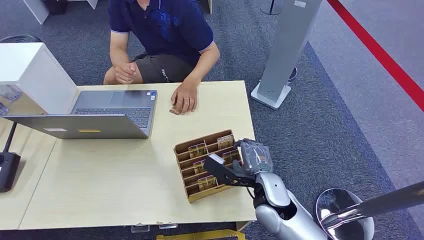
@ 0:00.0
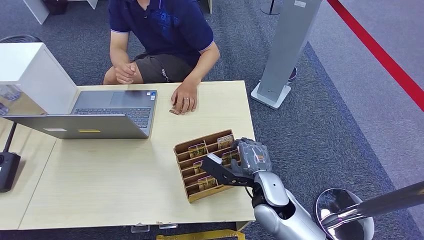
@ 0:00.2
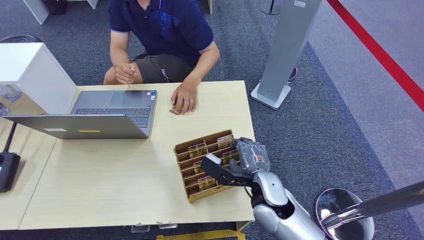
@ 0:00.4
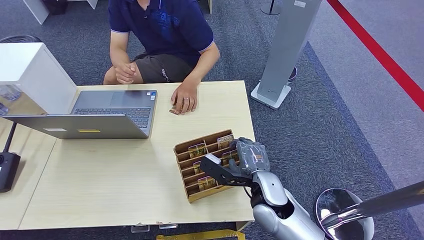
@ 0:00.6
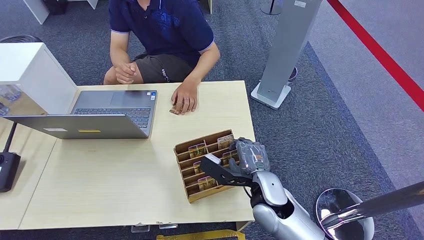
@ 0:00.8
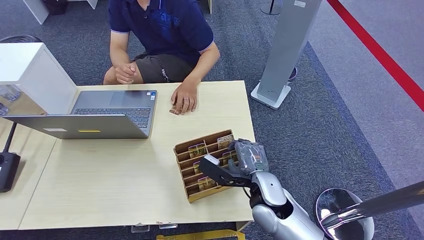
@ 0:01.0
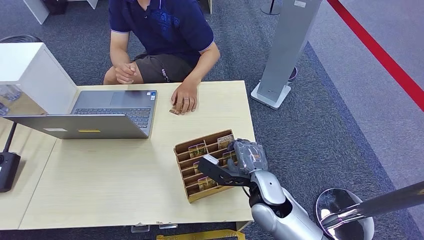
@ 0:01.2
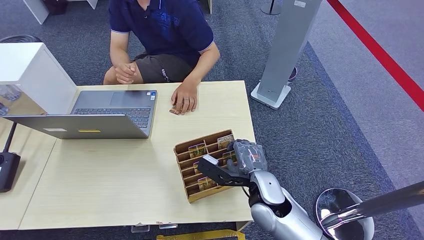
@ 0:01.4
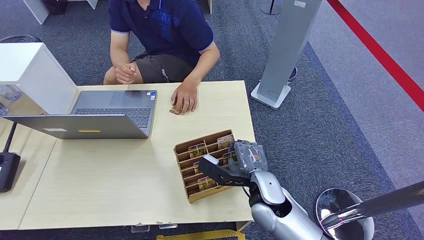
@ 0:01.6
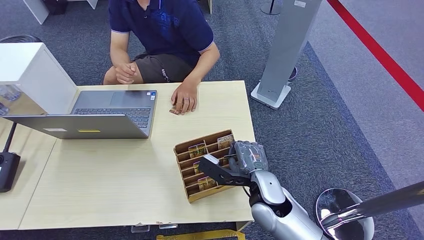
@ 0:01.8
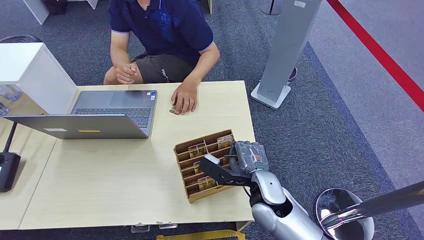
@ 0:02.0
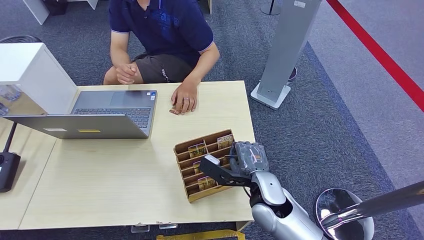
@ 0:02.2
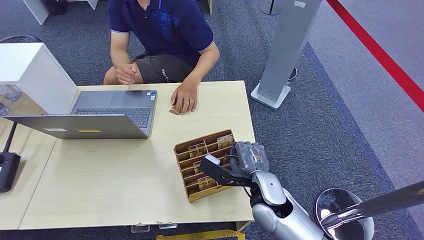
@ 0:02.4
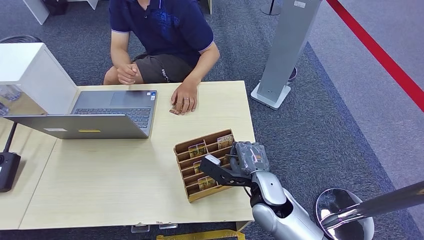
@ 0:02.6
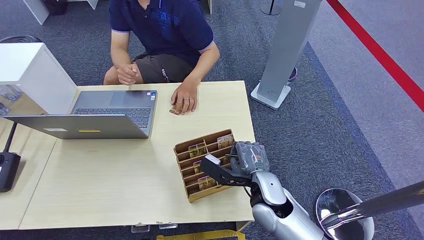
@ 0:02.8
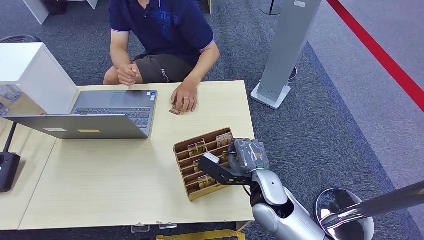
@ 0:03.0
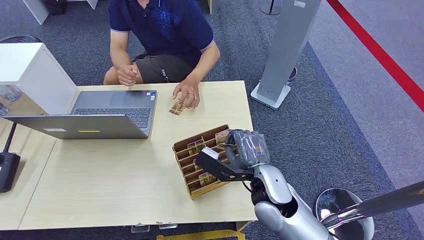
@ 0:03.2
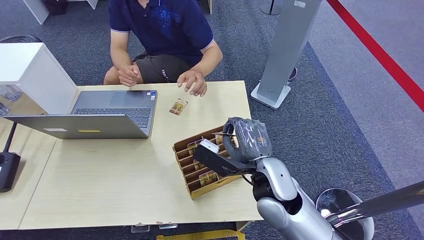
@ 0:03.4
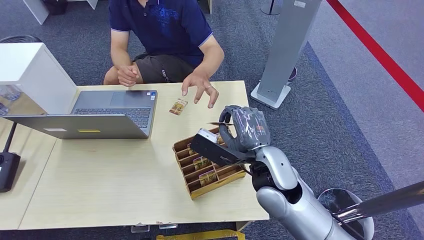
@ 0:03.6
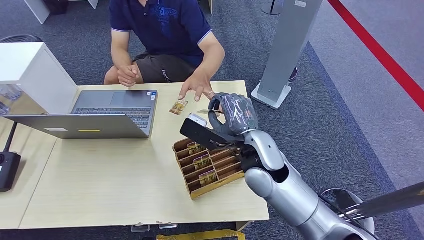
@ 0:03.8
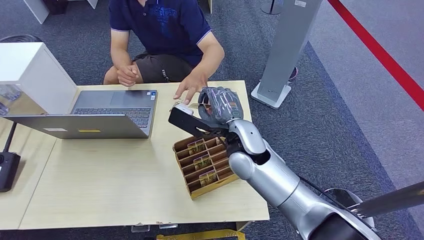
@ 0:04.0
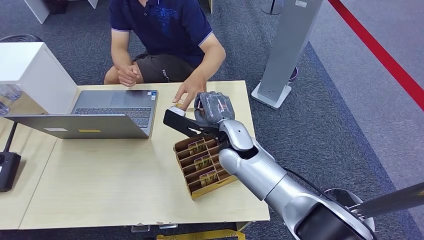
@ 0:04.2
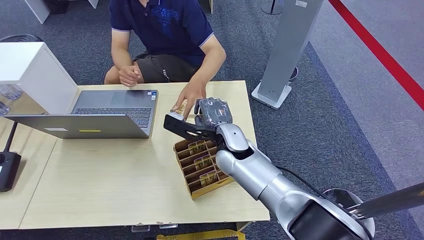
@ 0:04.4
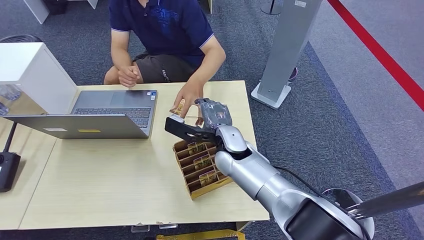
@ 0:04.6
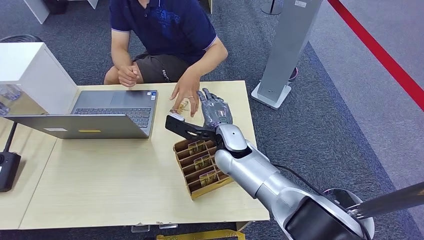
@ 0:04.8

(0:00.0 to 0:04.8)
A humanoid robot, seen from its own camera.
Step, 0:00.0 - 0:03.2: Pick up the key card from the card box.
Step, 0:03.4 - 0:04.8: Hand the key card to the target.
0:01.6 - 0:03.2: The hands make only small movements.
0:03.2 - 0:04.8: The right hand travels forward and to the left by approximately 15 cm.

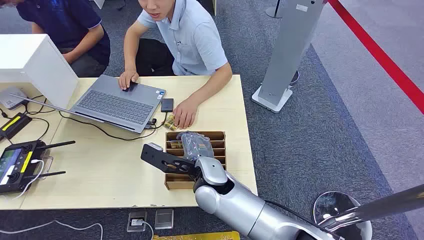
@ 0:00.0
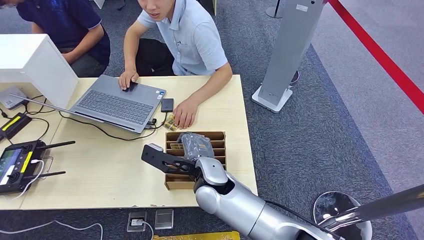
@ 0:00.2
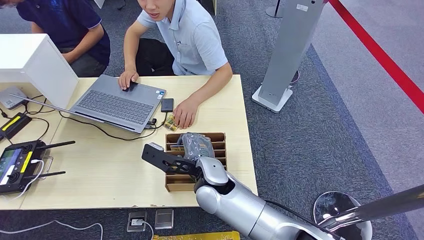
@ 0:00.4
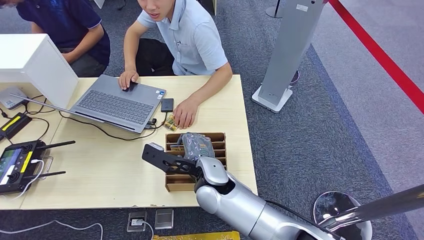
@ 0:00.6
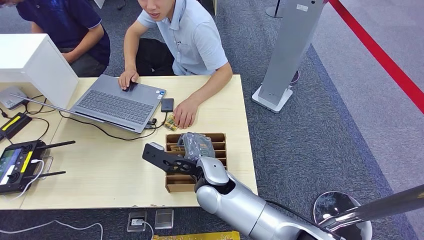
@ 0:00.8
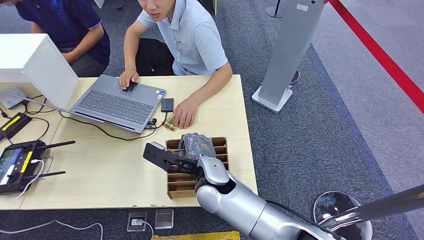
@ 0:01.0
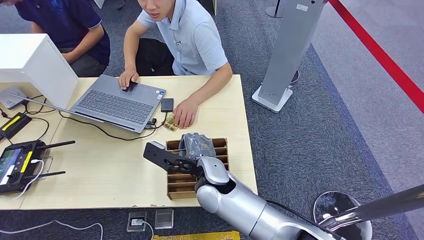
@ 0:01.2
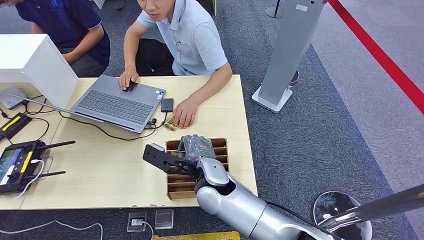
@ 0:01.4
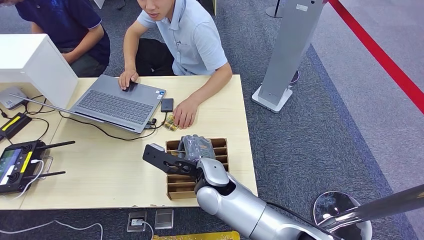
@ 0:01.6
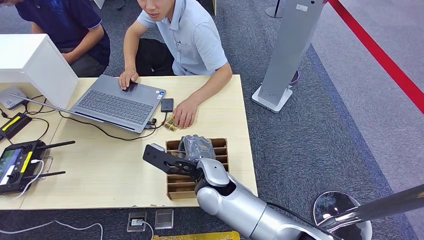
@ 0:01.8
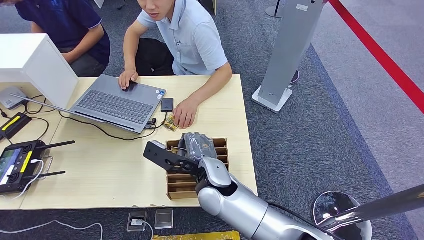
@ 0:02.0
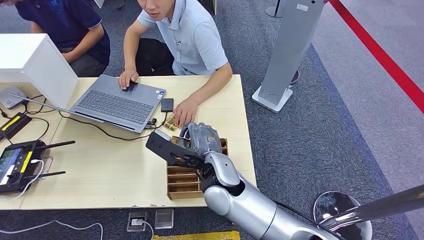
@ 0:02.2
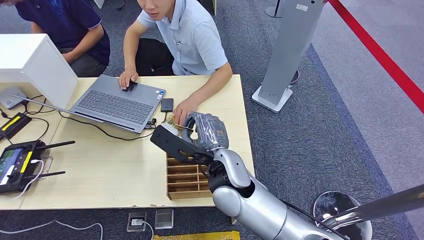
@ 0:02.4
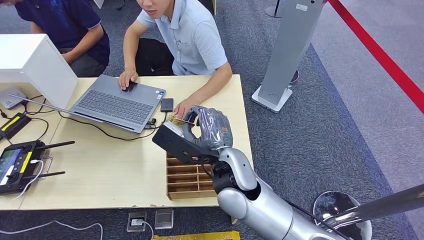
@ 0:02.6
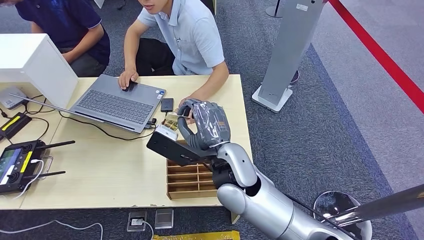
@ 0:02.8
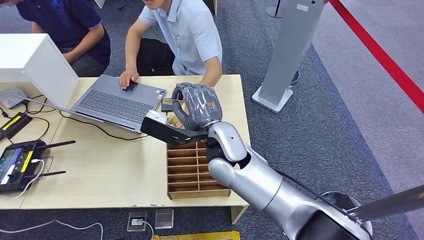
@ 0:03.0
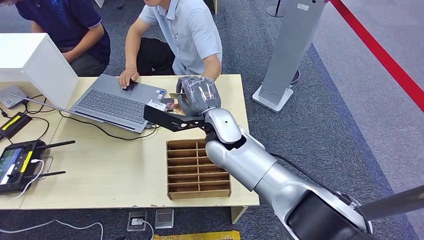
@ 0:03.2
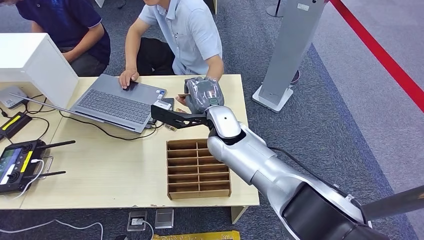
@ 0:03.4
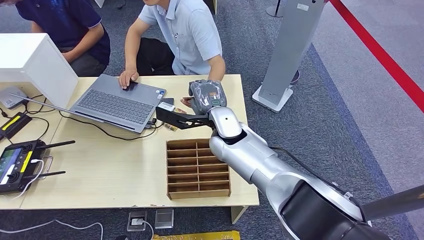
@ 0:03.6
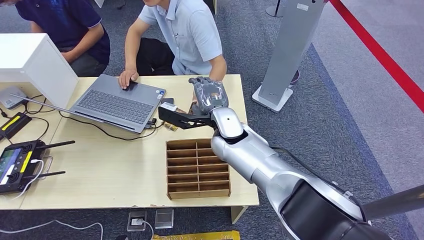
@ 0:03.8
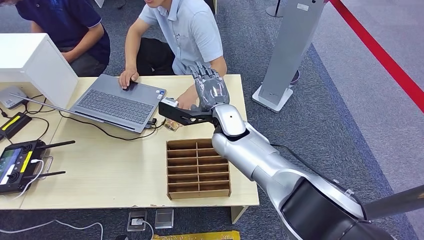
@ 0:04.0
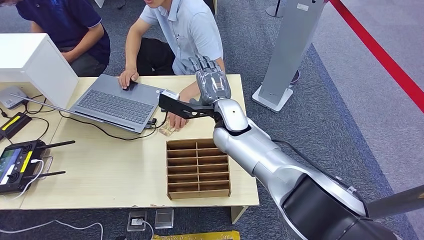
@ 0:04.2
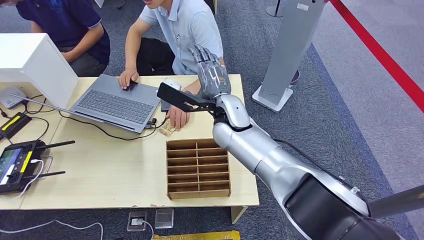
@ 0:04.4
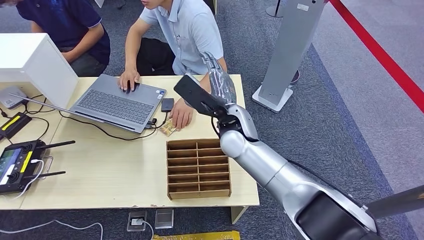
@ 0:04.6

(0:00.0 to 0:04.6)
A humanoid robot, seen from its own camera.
Step, 0:00.0 - 0:02.6: Pick up the key card from the card box.
Step, 0:03.0 - 0:04.6: Hand the key card to the target.
0:01.6 - 0:03.0: The right hand heads upward, covering roughly 10 cm.
0:03.0 - 0:04.6: The right hand shifts approximately 5 cm forward.

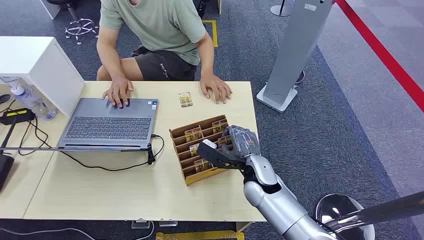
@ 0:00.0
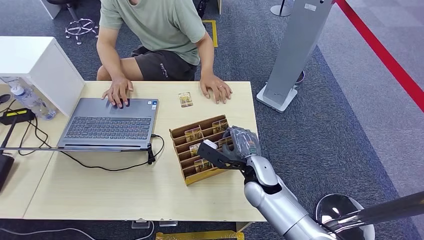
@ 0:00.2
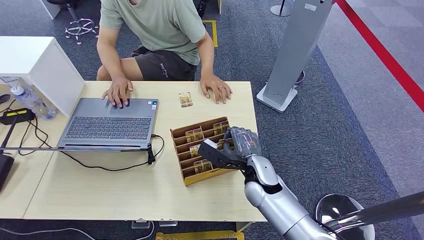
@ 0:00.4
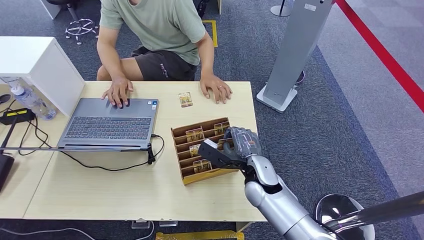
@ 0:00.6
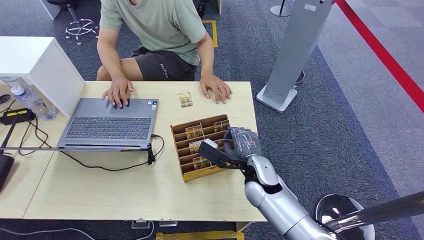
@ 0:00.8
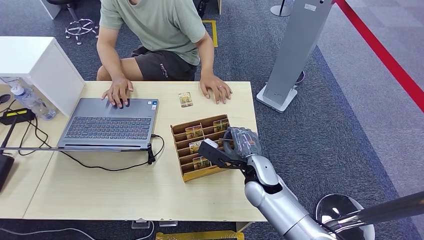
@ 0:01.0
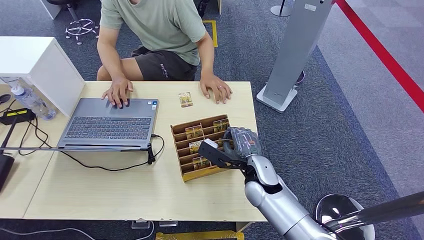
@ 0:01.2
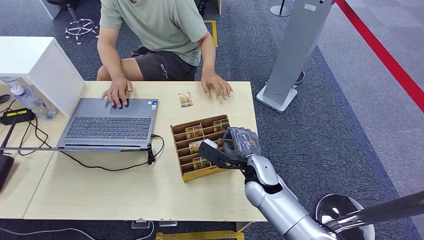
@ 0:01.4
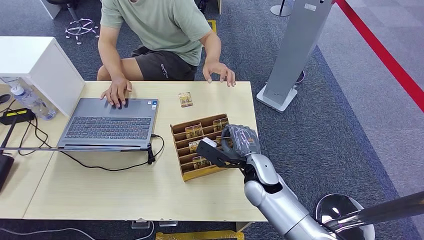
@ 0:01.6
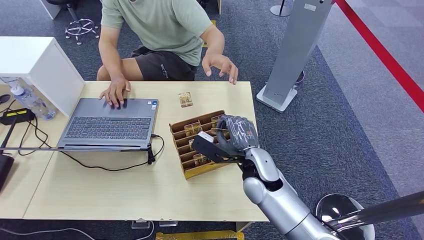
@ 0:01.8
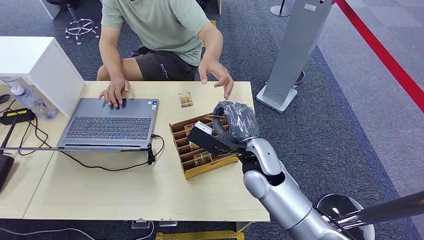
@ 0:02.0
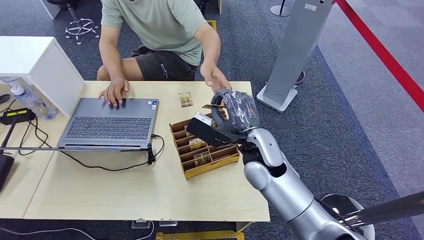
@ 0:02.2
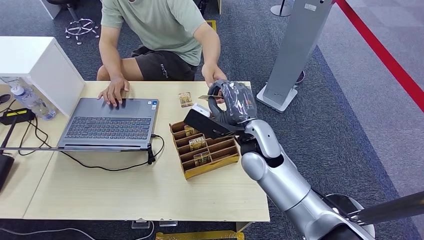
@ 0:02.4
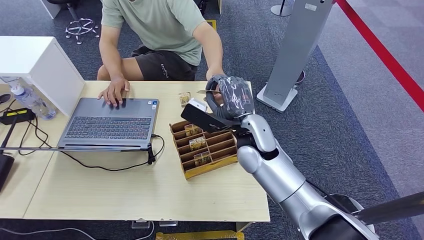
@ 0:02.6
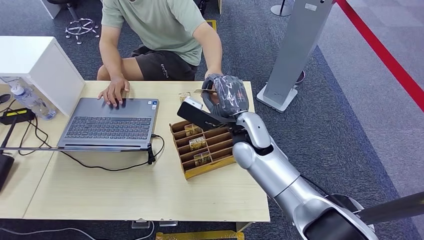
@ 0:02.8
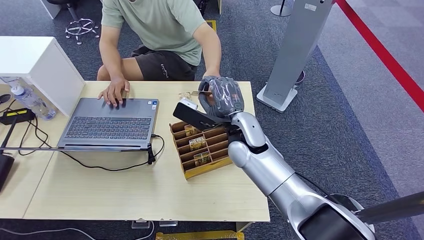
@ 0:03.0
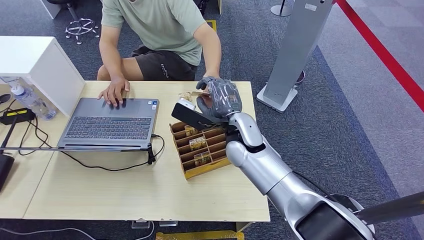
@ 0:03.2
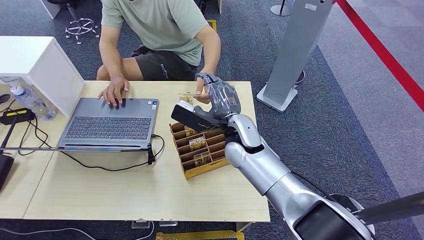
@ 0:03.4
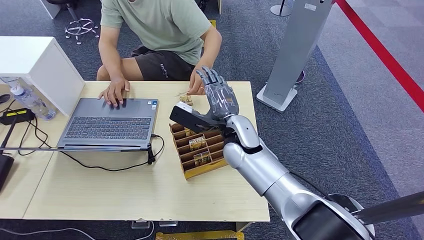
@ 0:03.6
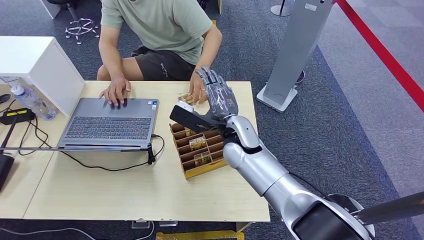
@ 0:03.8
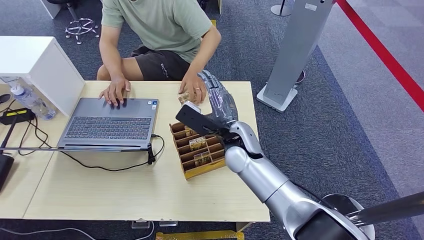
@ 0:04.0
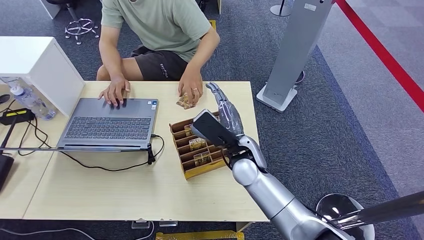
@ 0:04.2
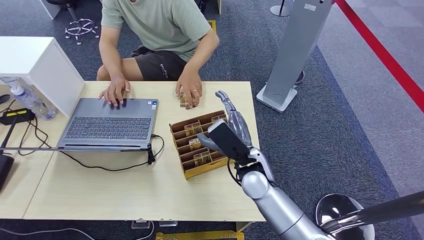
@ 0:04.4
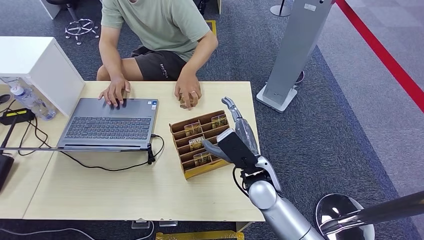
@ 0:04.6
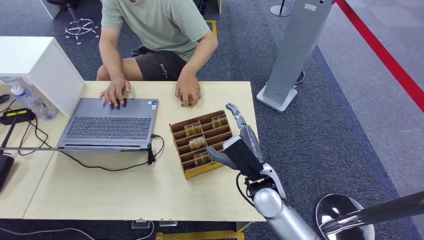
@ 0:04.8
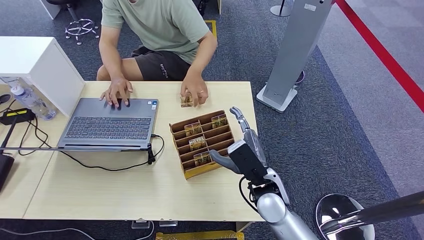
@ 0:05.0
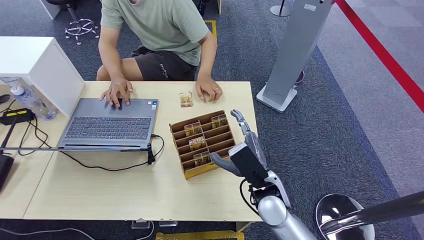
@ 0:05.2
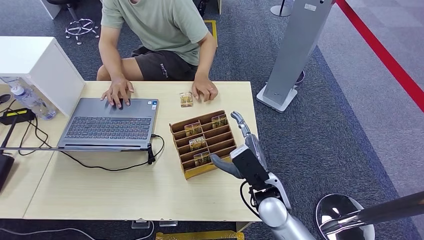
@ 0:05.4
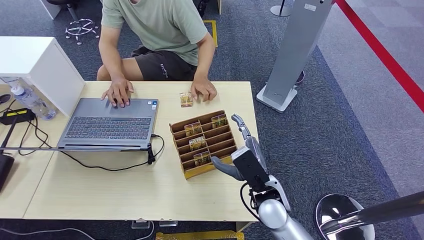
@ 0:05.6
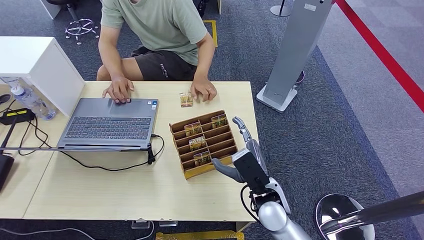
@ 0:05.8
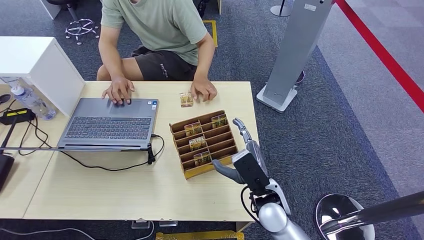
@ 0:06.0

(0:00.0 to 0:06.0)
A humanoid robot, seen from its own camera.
Step, 0:00.0 - 0:01.8: Pick up the key card from the card box.
Step, 0:02.0 - 0:06.0: Hand the key card to the target.
0:01.6 - 0:03.0: The right hand is displaced upward and forward by some 10 cm.
0:03.0 - 0:04.4: The right hand goes some 10 cm downward and backward.
0:04.4 - 0:06.0: The right hand goes about 5 cm backward.
